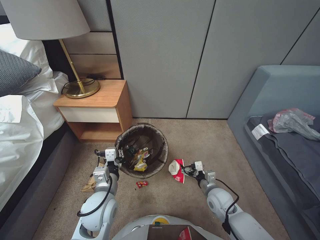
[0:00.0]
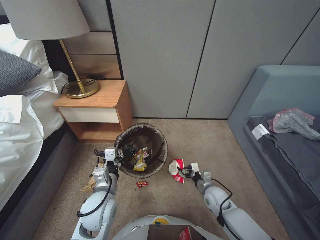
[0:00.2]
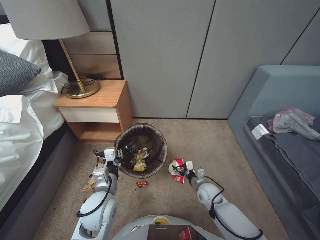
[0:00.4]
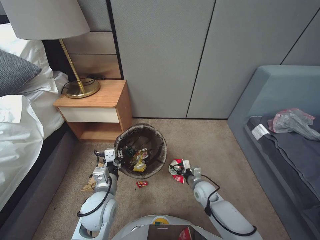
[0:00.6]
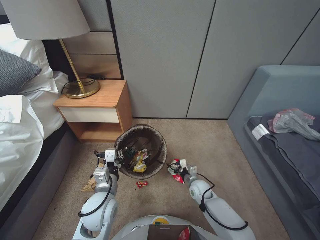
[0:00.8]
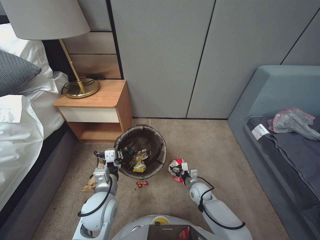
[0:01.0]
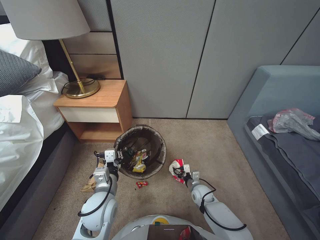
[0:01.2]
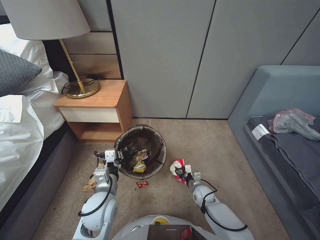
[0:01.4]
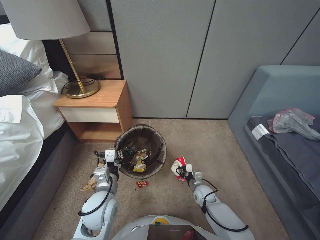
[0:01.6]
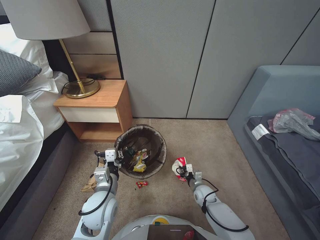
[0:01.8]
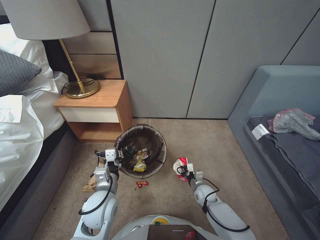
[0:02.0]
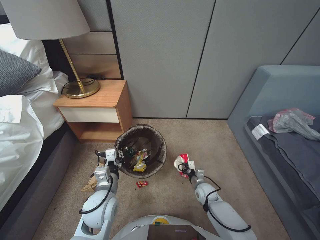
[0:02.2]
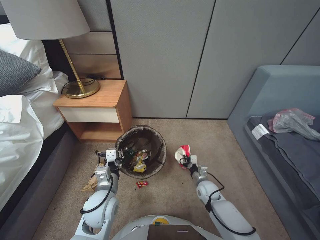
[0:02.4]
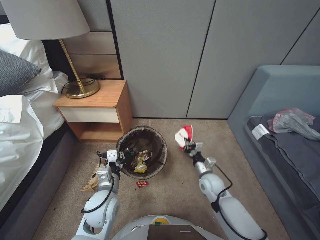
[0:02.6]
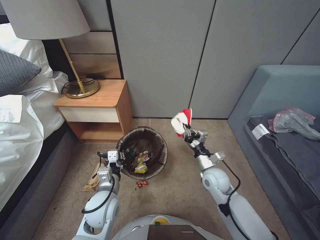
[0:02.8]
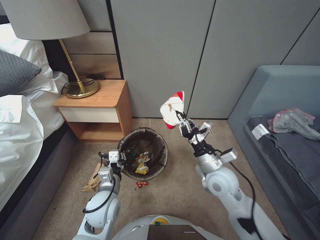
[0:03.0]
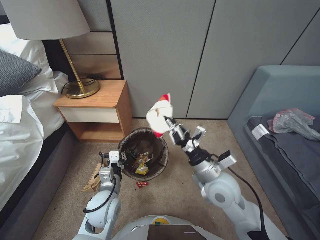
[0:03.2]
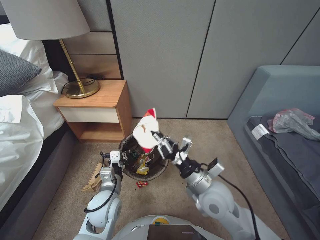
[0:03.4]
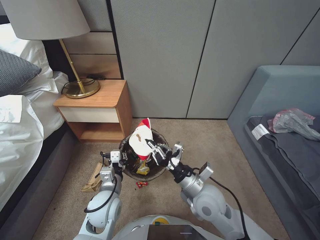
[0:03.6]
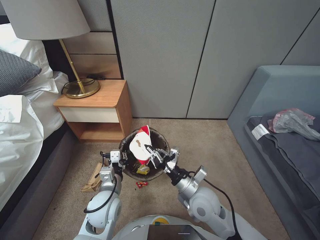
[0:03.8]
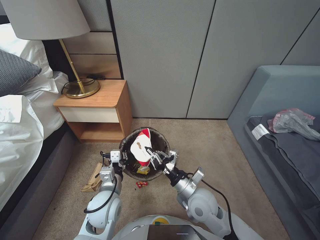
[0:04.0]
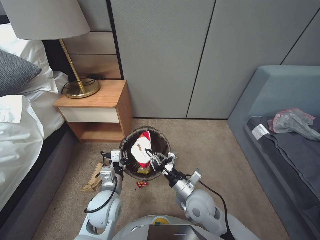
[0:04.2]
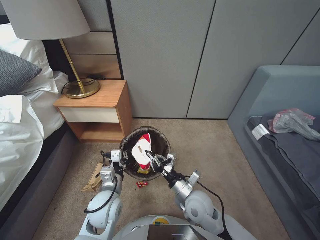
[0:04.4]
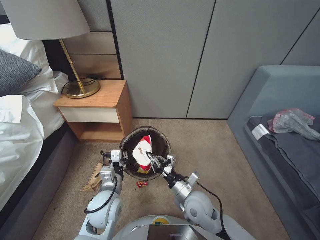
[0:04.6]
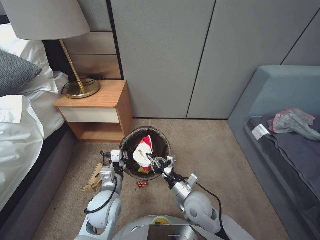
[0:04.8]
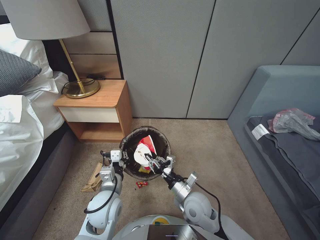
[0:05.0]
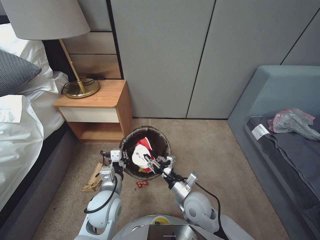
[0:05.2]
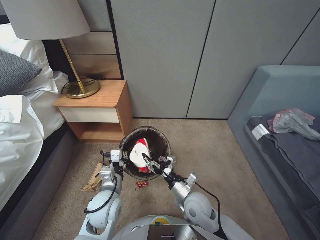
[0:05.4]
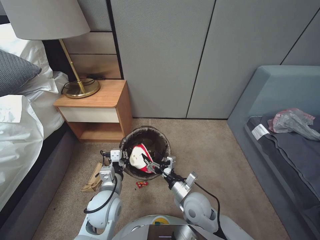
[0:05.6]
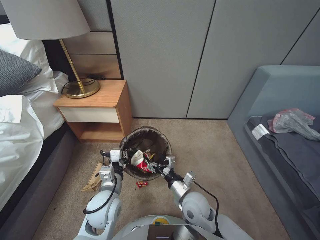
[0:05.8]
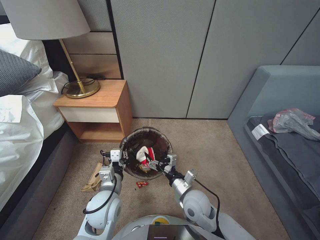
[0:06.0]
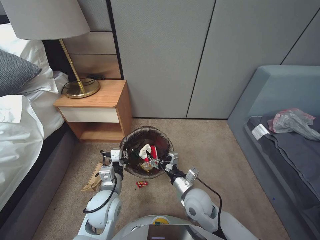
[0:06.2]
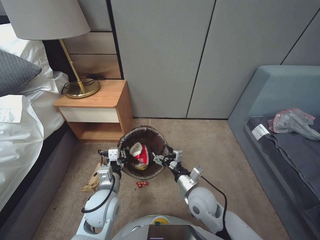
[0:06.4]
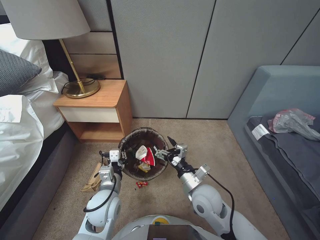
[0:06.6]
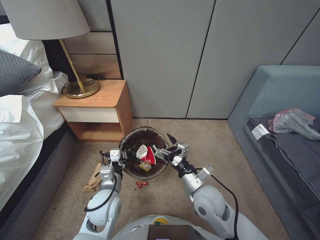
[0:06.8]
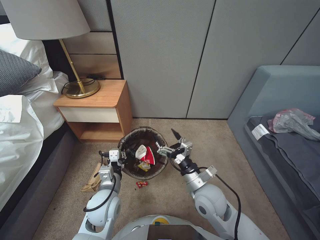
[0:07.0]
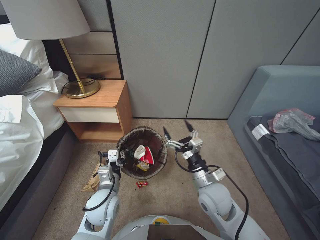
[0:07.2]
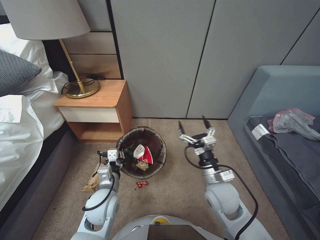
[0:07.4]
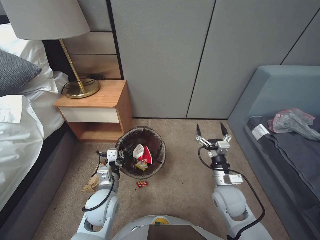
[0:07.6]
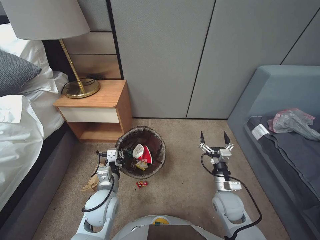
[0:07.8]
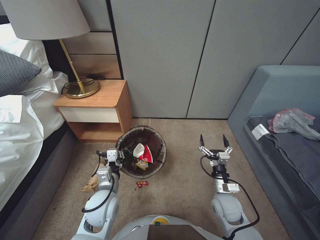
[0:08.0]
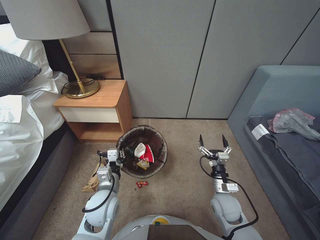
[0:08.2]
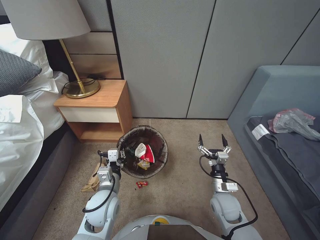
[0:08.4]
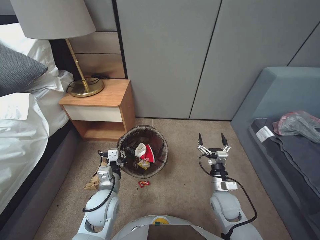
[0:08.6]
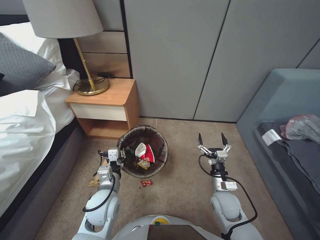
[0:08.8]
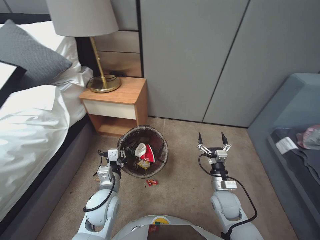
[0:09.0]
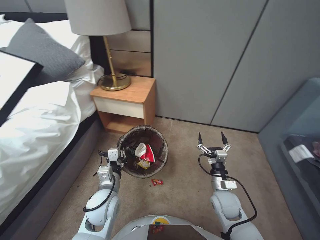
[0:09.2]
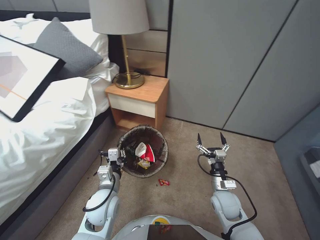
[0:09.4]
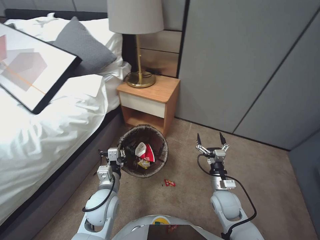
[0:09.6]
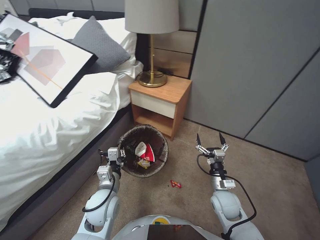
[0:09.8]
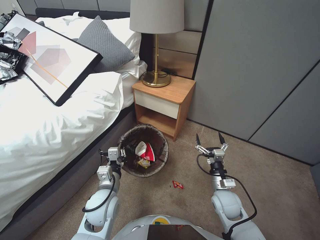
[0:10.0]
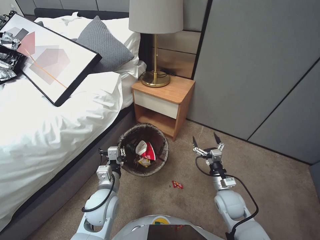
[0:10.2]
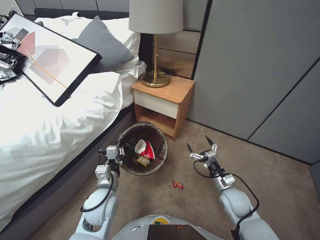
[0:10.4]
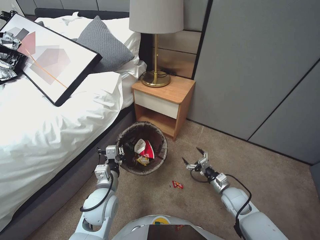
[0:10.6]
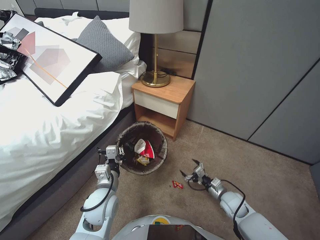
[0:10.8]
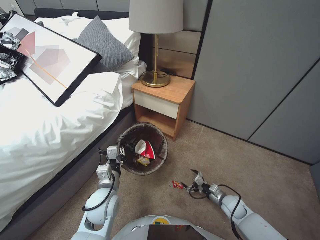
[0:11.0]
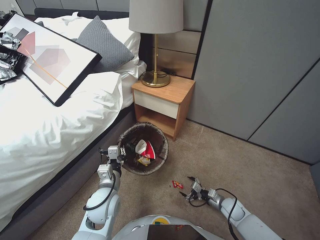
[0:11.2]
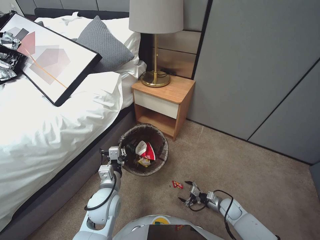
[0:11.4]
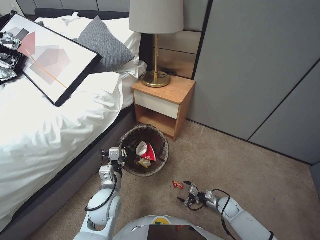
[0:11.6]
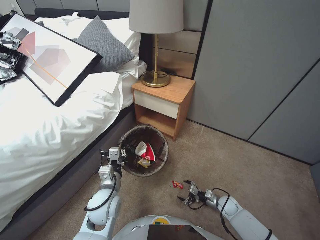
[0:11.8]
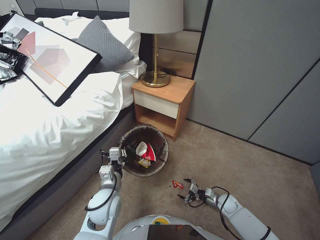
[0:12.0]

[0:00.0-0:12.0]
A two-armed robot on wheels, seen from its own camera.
Task of the whole recording: Pick up the trash bin, then pick up the garbage from the floor and place it into the trash bin.
0:00.0 to 0:01.6: The right gripper travels downward by roughly 15 cm, and closes its fingers.
0:01.6 to 0:03.0: The right gripper shifts roughly 15 cm upward.
0:03.0 to 0:04.4: The right gripper goes about 15 cm to the left and backward, and travels upward and back again, about 15 cm each way.
0:04.4 to 0:06.0: The right gripper opens its fingers.
0:06.0 to 0:07.6: The right gripper is displaced to the right and upward by some 10 cm.
0:07.6 to 0:09.0: The right gripper shifts approximately 10 cm downward.
0:10.4 to 0:12.0: The right gripper heads downward and to the right, covering roughly 20 cm.

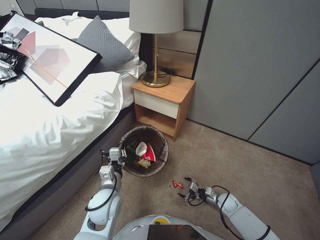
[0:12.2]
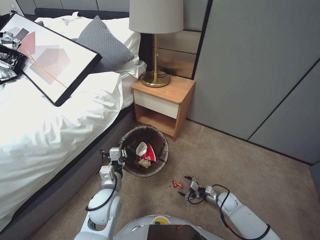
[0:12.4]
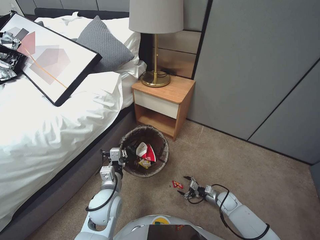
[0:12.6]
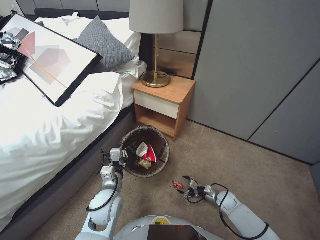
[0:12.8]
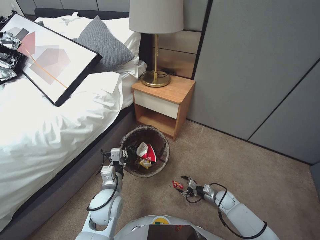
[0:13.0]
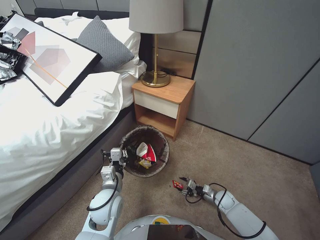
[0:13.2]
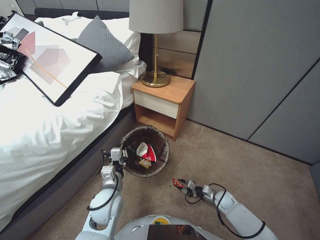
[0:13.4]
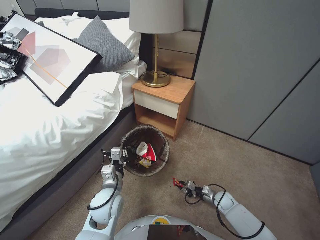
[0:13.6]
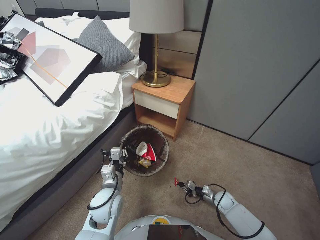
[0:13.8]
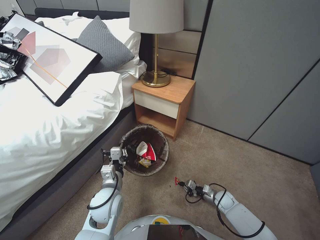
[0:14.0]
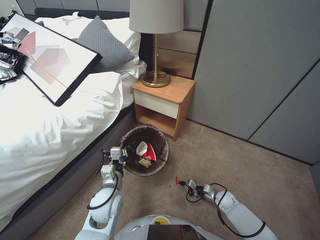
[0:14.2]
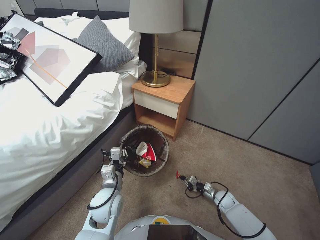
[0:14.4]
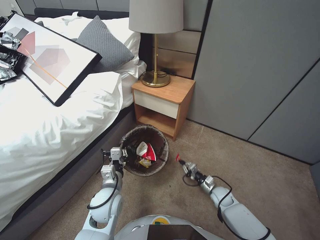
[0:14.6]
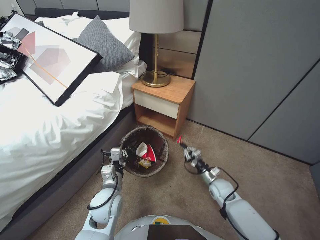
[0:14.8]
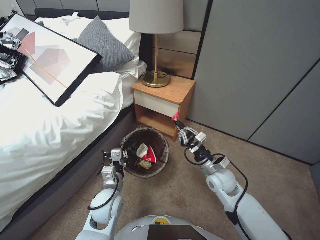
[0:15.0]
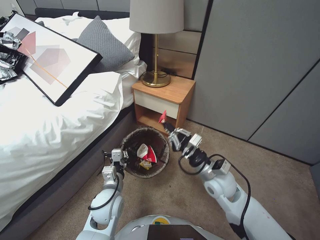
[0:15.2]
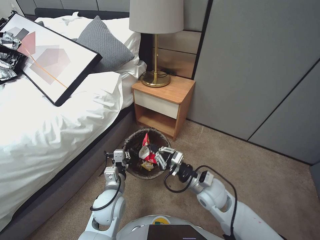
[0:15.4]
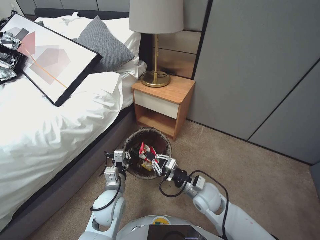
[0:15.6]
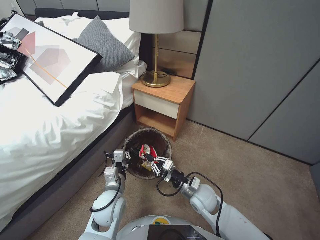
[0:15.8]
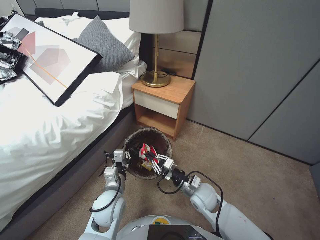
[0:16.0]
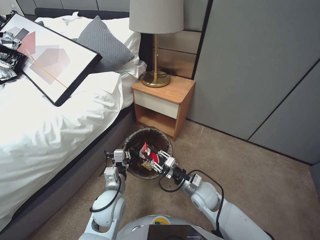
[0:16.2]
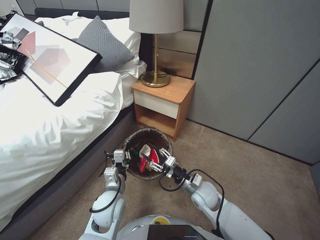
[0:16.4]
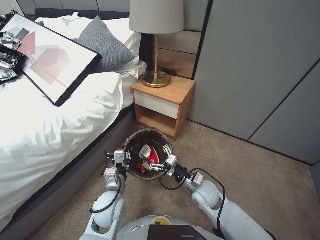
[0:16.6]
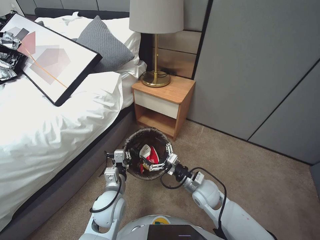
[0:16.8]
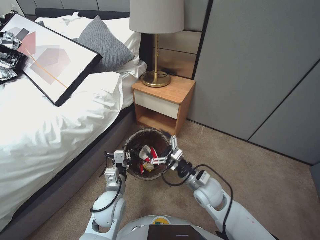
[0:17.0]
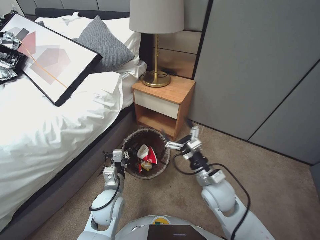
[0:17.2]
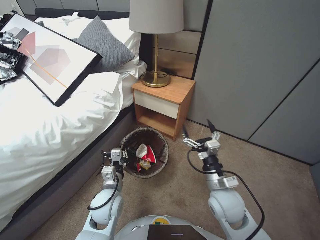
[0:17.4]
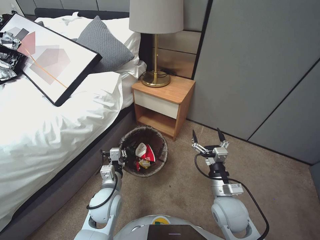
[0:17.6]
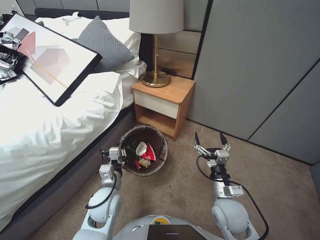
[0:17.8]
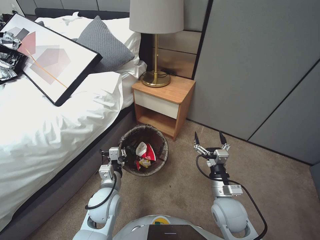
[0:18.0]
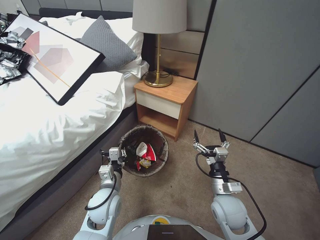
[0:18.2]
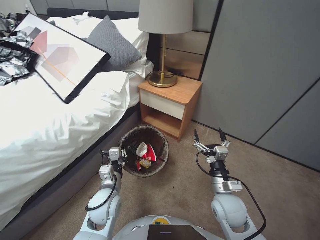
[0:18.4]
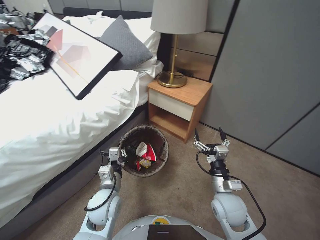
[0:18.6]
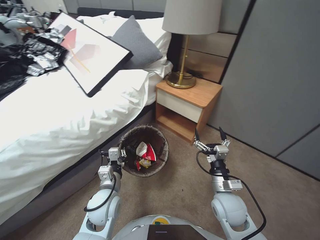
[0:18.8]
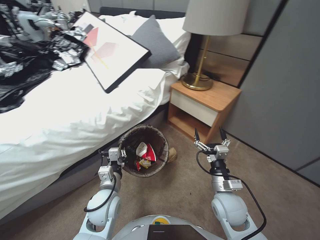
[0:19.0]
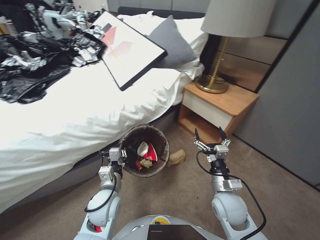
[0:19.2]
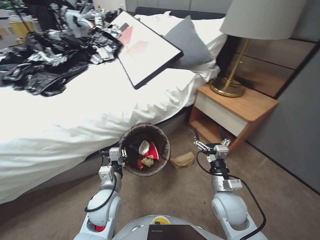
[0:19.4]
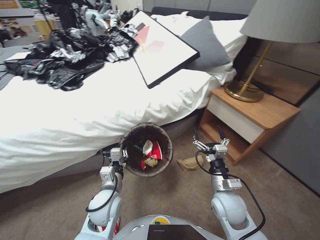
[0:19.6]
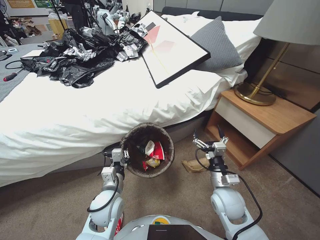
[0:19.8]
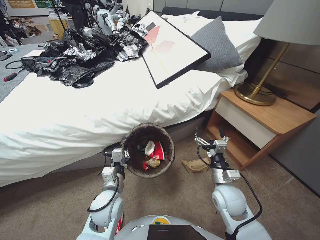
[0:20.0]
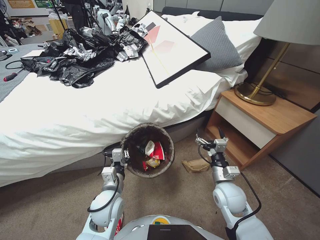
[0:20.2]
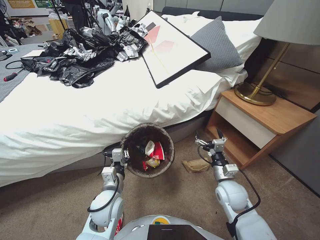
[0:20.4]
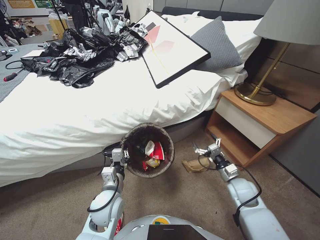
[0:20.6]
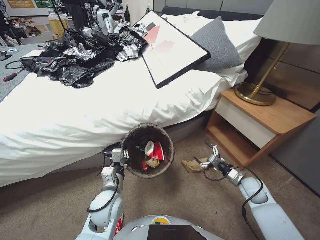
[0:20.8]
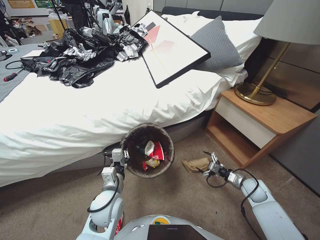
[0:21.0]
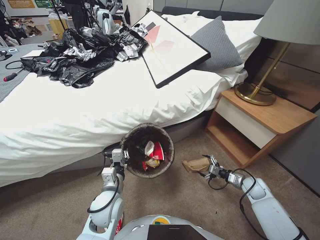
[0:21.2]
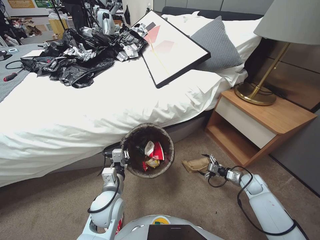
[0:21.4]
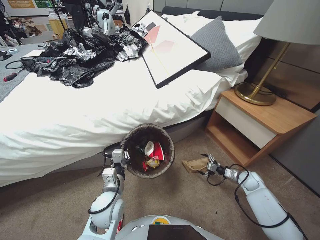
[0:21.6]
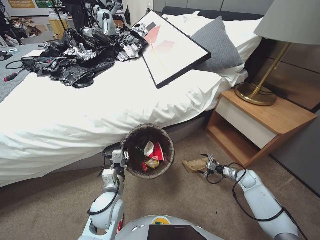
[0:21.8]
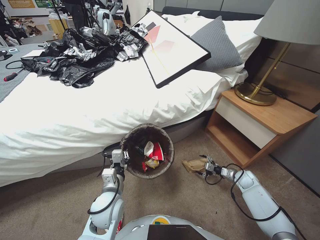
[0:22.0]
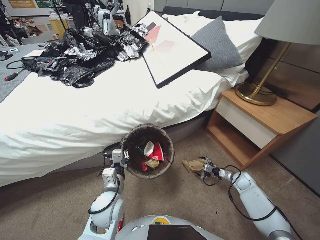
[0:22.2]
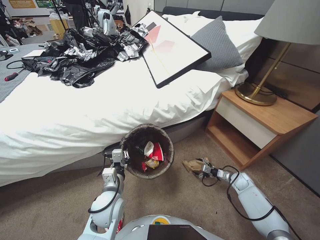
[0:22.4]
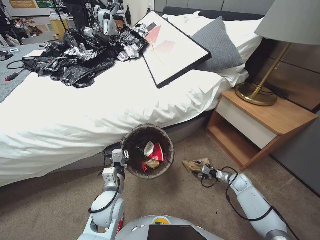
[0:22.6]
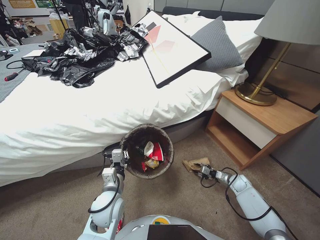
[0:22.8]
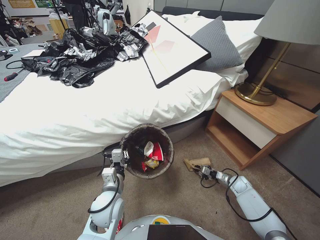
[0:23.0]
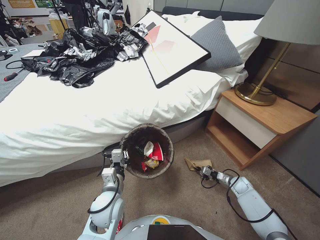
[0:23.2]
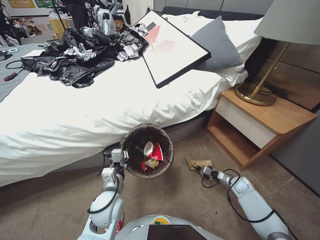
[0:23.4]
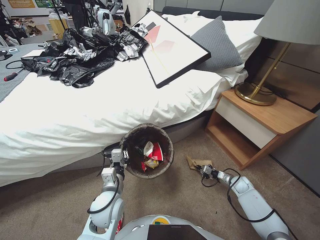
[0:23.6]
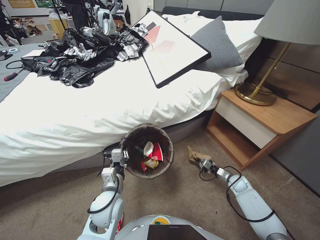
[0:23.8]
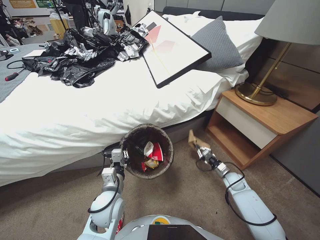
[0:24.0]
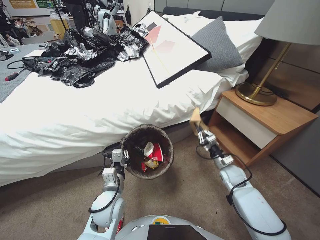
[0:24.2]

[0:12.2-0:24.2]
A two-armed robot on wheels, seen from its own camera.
Task of the whole recording: Pick up the trash bin, then pick up the garbage from the floor and place it into the trash bin.
0:12.2 to 0:13.8: The right gripper closes its fingers.
0:13.8 to 0:15.2: The right gripper shifts some 30 cm upward and to the left.
0:15.2 to 0:16.6: The right gripper is displaced downward by some 10 cm, and opens its fingers.
0:16.6 to 0:18.2: The right gripper moves backward, approximately 5 cm.
0:19.8 to 0:21.2: The right gripper is displaced to the right and downward by about 20 cm.
0:21.2 to 0:22.6: The right gripper moves downward and forward, roughly 10 cm.
0:22.6 to 0:24.2: The right gripper shifts about 10 cm to the left and upward, and closes up.
